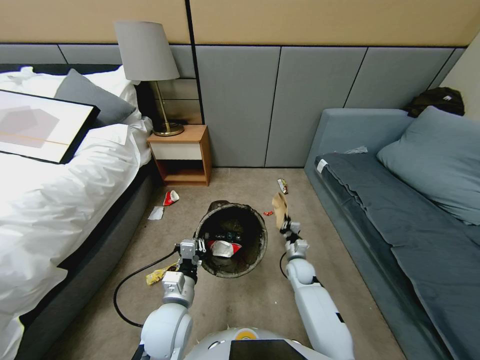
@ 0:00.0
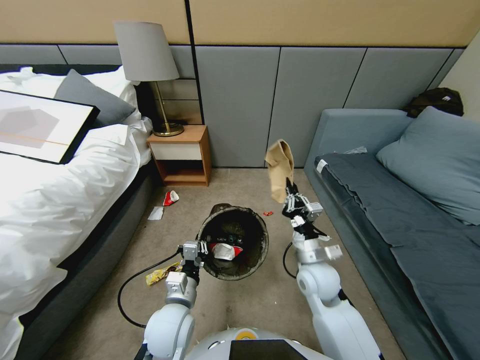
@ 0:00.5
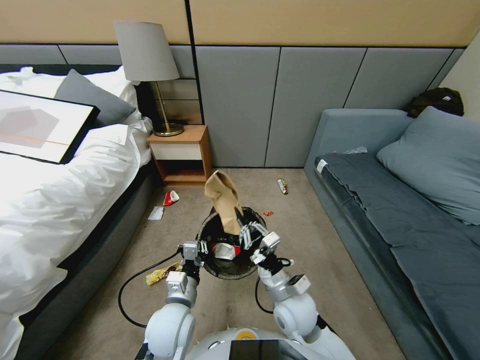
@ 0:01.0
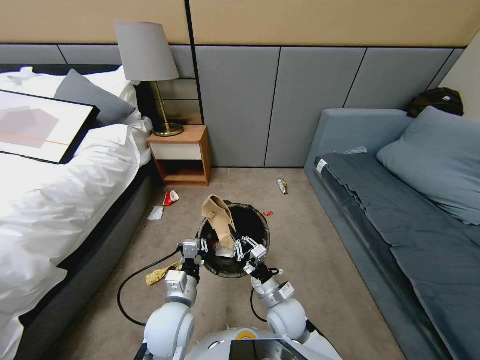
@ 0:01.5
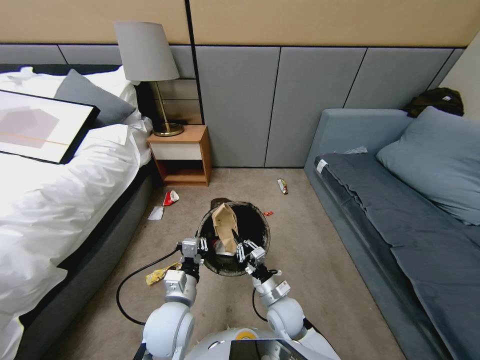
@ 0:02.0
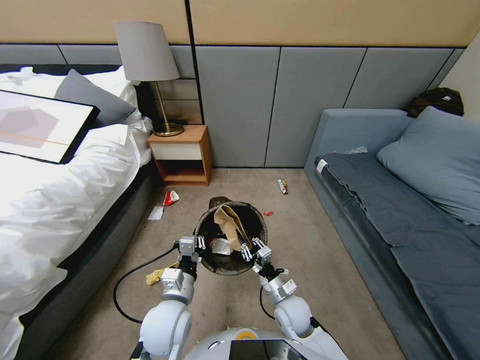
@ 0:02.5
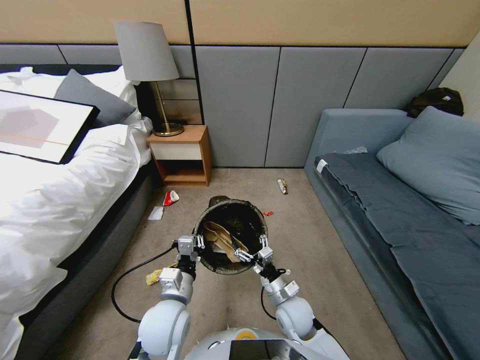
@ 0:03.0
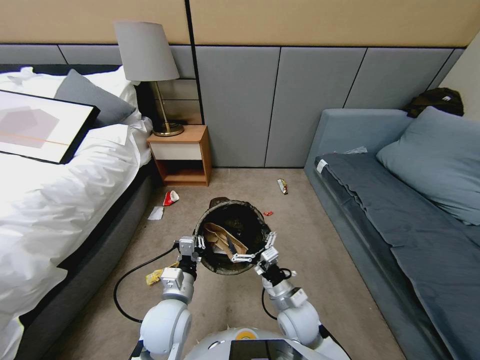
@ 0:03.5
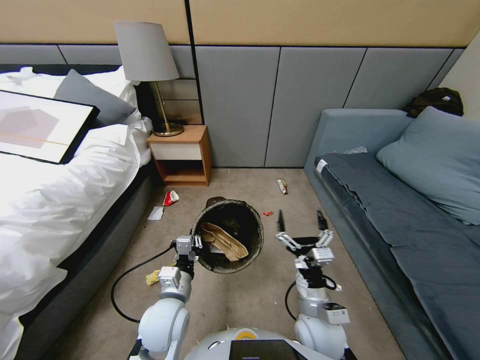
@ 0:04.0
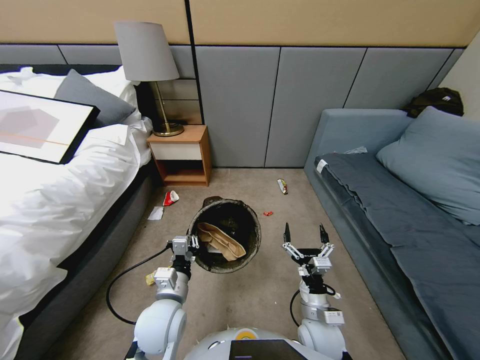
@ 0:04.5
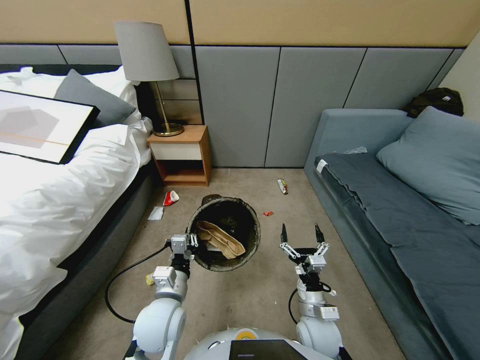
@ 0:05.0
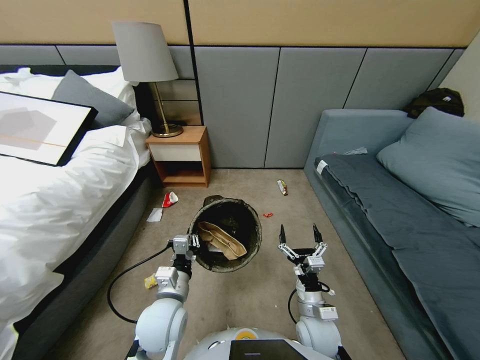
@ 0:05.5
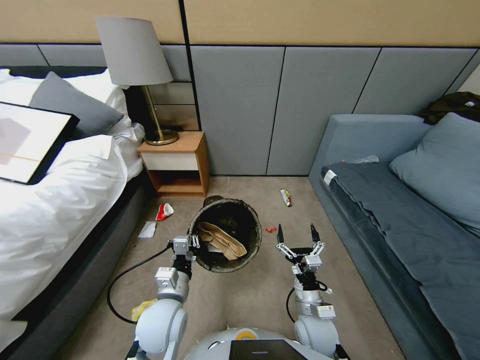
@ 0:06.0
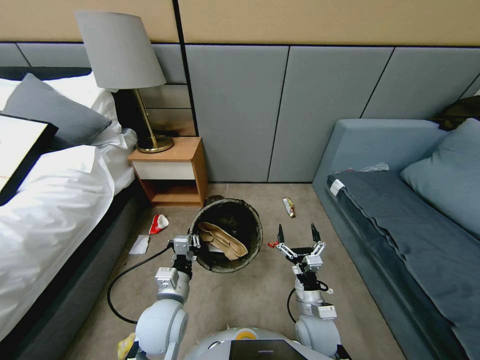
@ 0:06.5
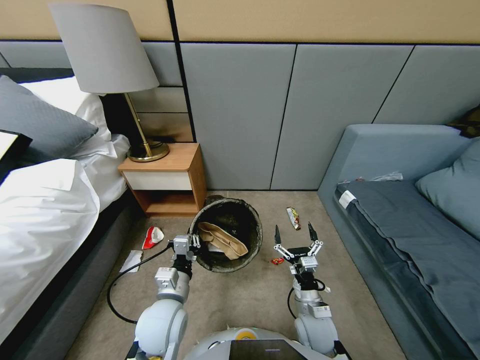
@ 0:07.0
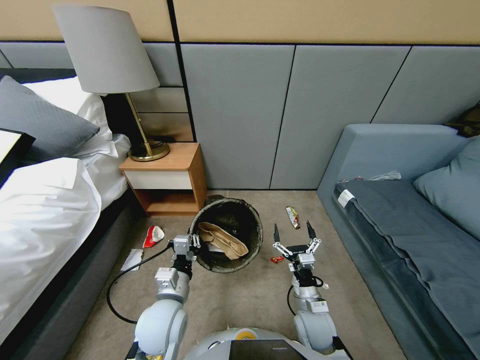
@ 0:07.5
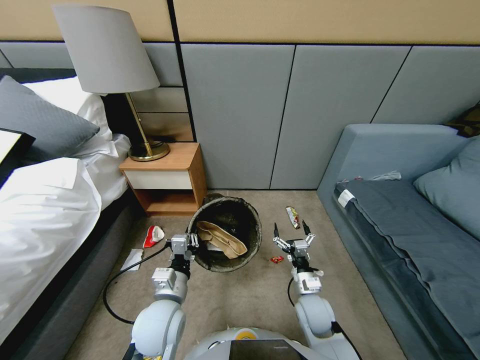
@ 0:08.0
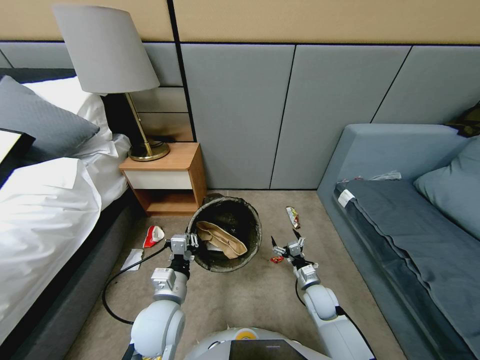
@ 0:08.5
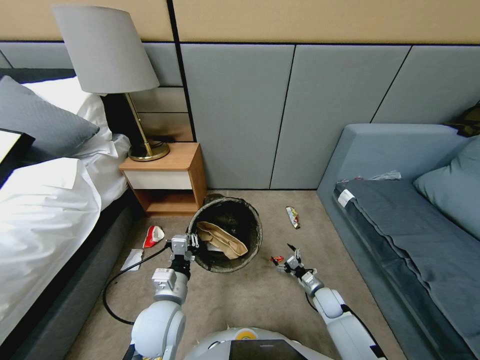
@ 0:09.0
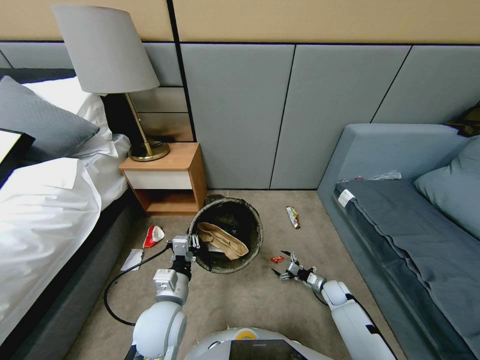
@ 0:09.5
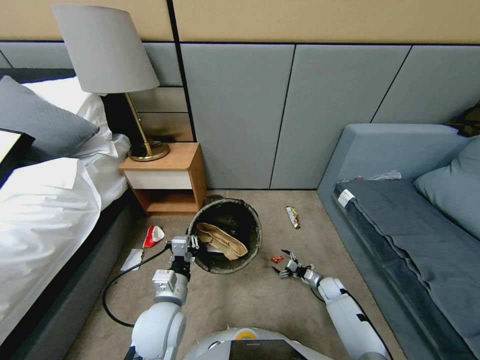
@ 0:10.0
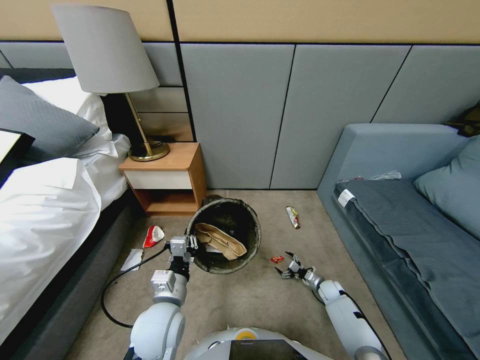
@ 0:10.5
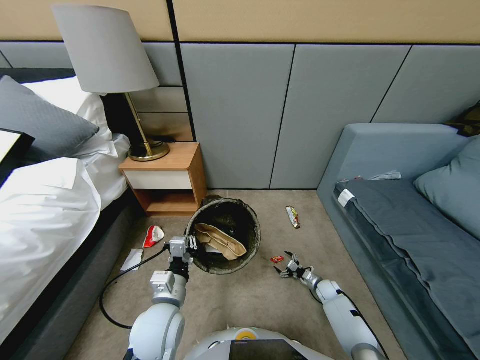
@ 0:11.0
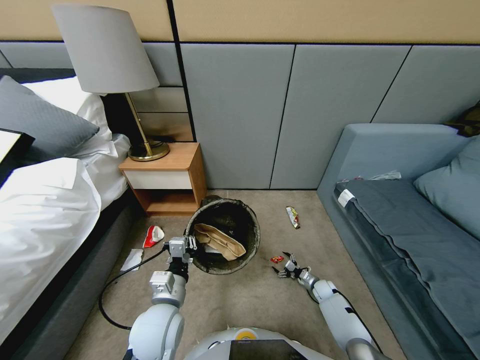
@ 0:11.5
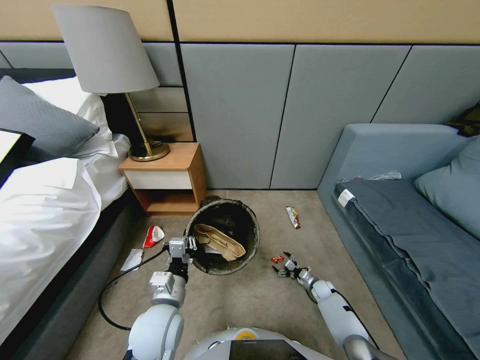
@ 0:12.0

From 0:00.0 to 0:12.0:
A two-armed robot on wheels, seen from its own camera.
Task of the whole recording: Pick up the trash bin, then pick up the garbage from the floor and place it into the trash bin.
From 0:00.0 to 0:02.0: The right gripper is displaced backward and to the left by some 15 cm.
From 0:02.0 to 0:04.0: The right gripper is displaced upward, to the right and backward by roughly 10 cm, and opens up.
From 0:04.0 to 0:06.0: The right gripper heads downward, covering approximately 5 cm.
From 0:06.0 to 0:08.0: The right gripper moves forward, some 5 cm.
From 0:08.0 to 0:10.0: The right gripper goes roughly 25 cm downward, to the right and forward.
From 0:10.0 to 0:12.0: The grippers move only a little.

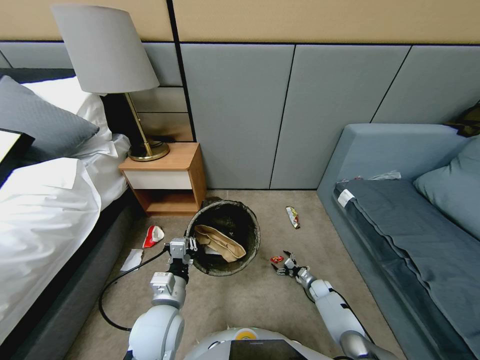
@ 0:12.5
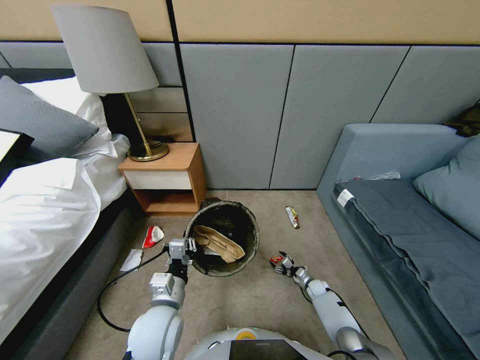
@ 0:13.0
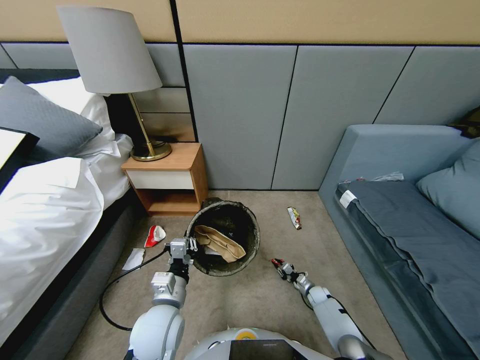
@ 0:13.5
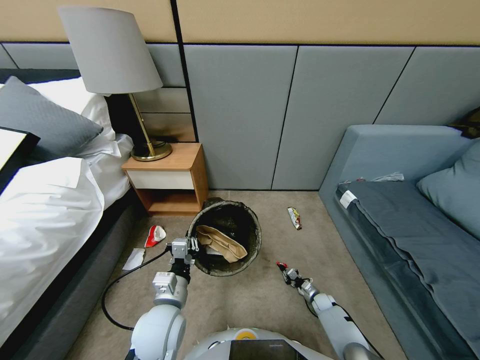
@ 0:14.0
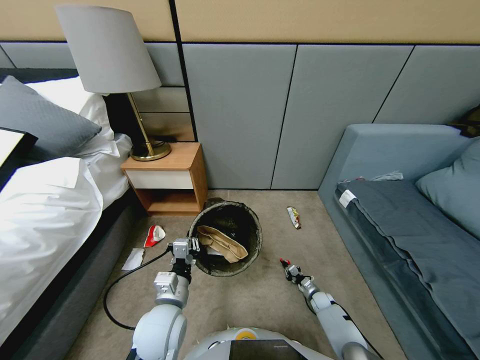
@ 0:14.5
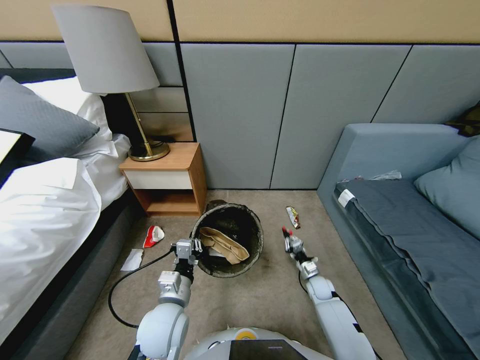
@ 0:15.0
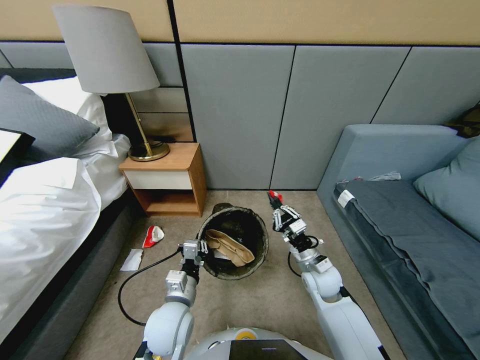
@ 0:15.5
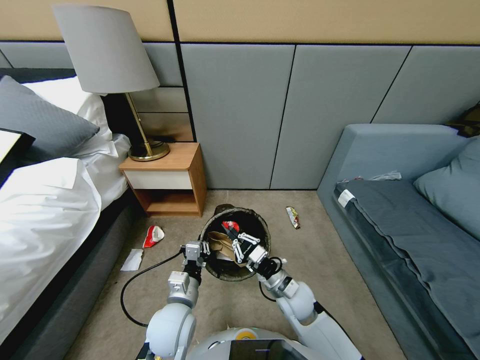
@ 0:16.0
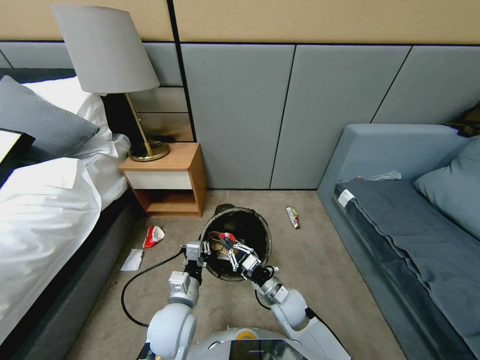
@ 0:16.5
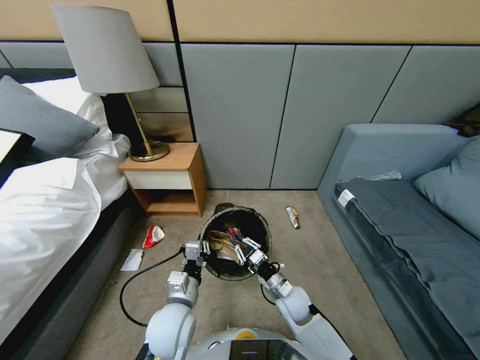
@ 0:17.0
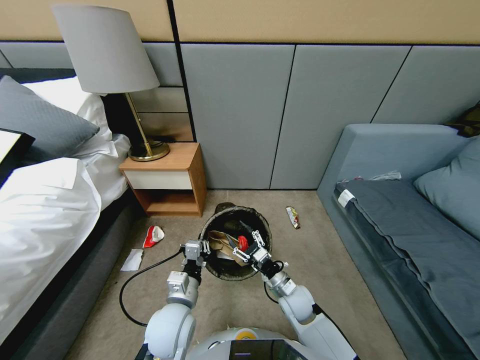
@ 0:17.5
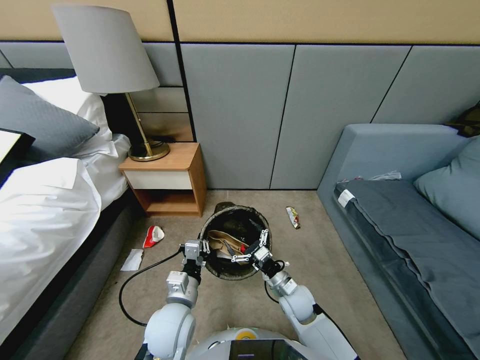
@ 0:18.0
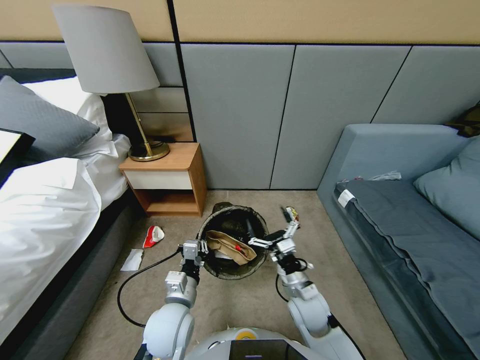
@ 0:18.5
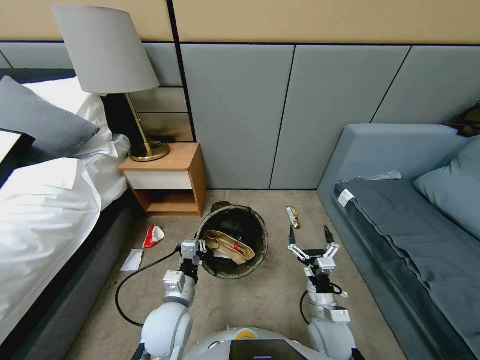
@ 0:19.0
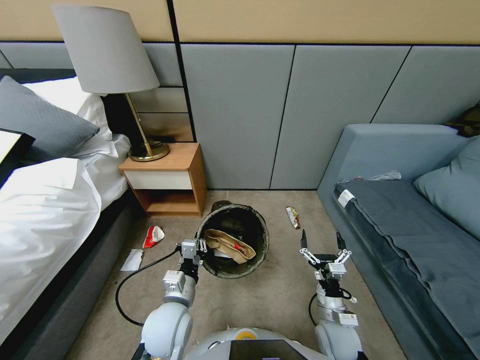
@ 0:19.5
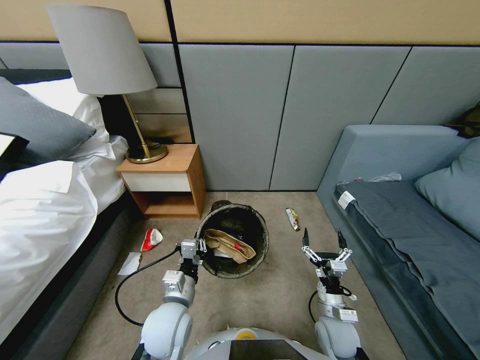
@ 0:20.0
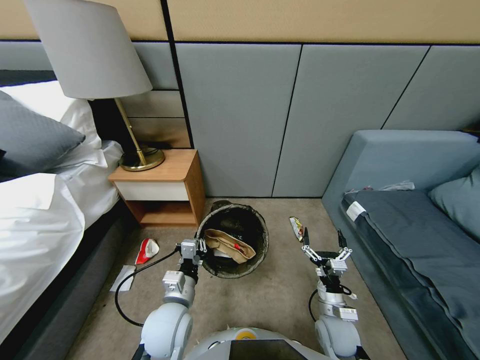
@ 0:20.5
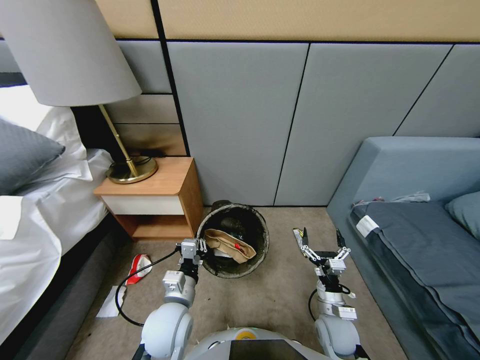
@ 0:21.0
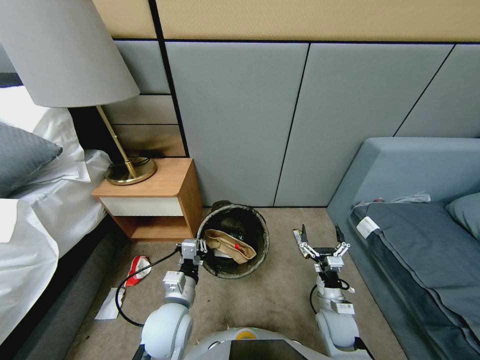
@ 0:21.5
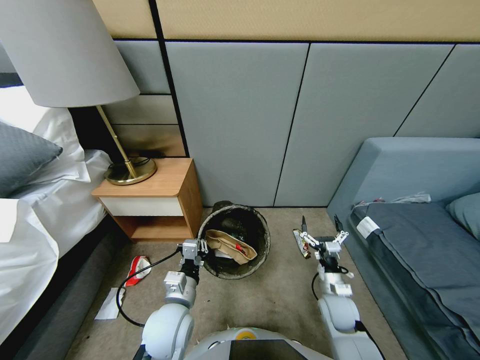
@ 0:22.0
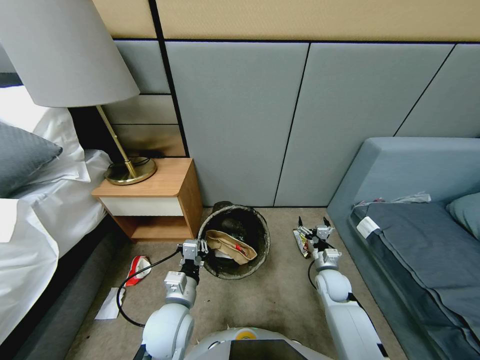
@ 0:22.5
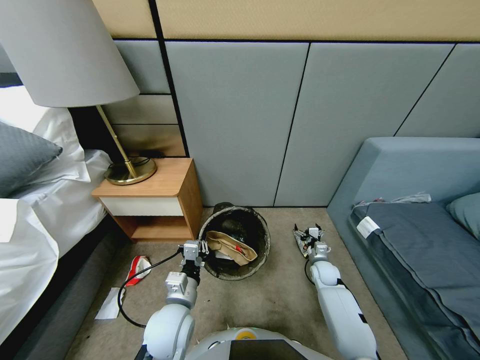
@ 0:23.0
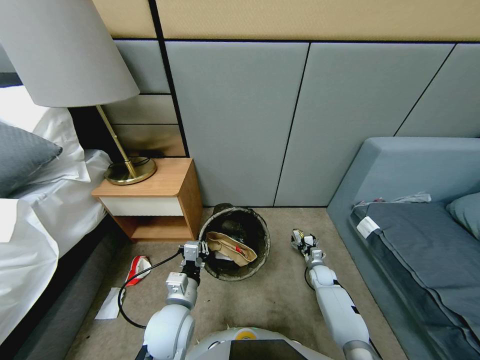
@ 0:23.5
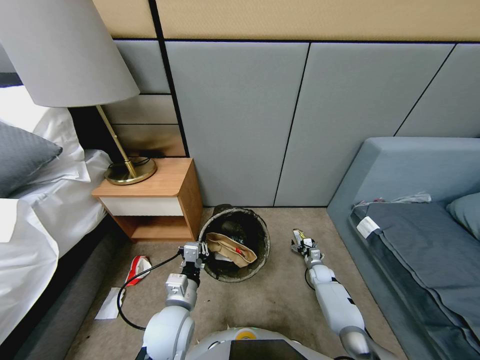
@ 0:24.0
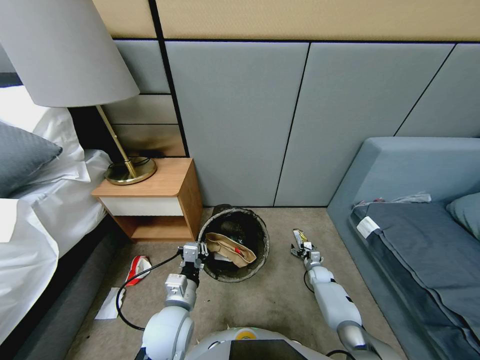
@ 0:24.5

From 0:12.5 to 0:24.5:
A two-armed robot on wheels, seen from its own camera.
Task of the whole recording: Pick up the trash bin, then pick up the garbage from the floor and place it into the trash bin.
From 0:12.5 to 0:14.5: The right gripper closes up.
From 0:14.5 to 0:16.5: The right gripper travels upward and to the left by some 30 cm.
From 0:16.5 to 0:18.5: The right gripper moves upward, roughly 5 cm, and opens.
From 0:18.5 to 0:20.5: The right gripper heads to the right and downward, covering about 10 cm.
From 0:20.5 to 0:22.5: The right gripper travels forward and to the right by approximately 15 cm.
From 0:22.5 to 0:24.5: The right gripper moves downward and forward, some 20 cm.

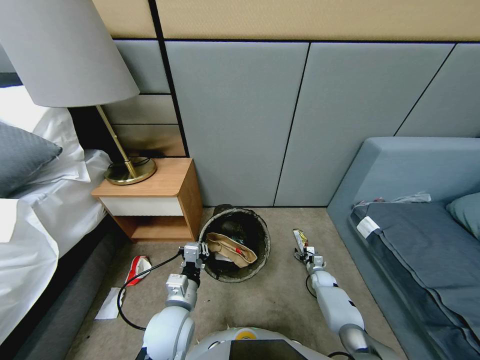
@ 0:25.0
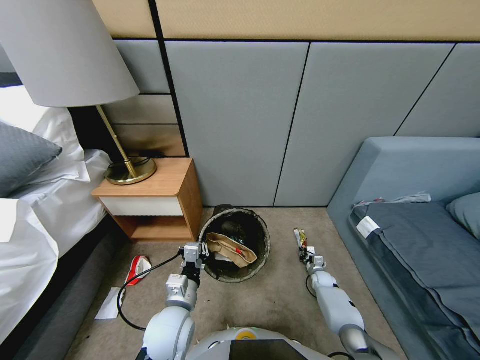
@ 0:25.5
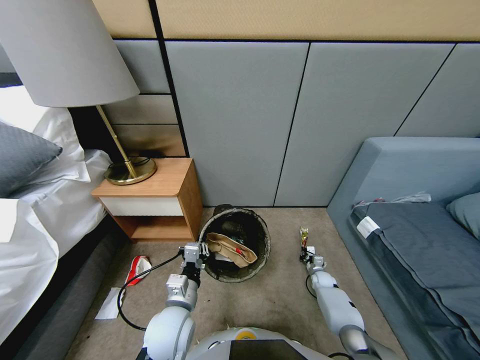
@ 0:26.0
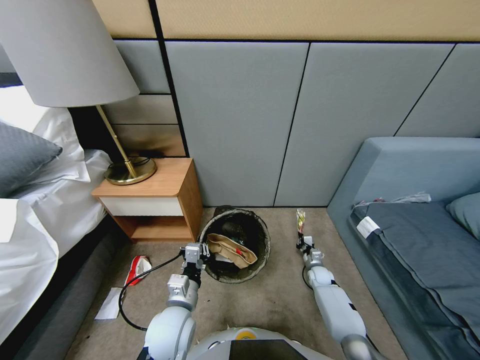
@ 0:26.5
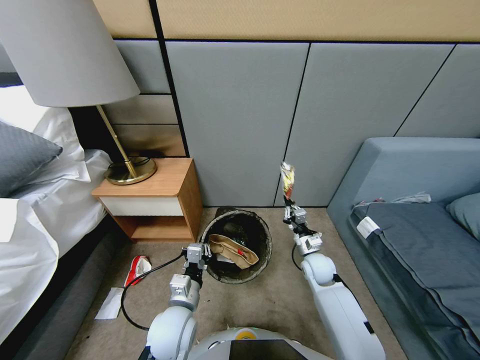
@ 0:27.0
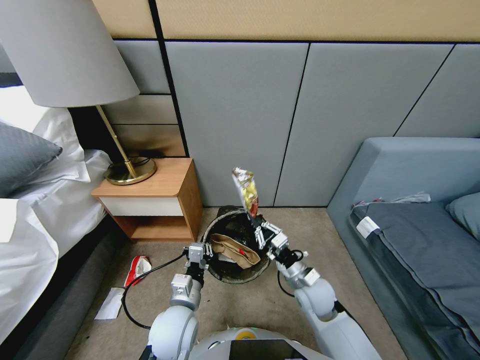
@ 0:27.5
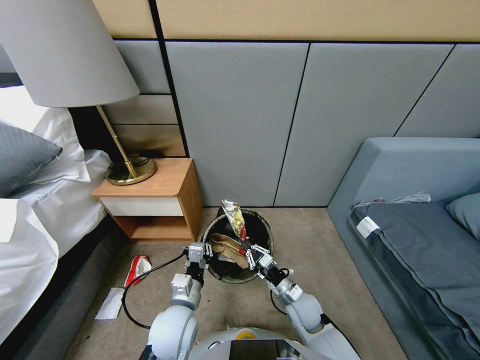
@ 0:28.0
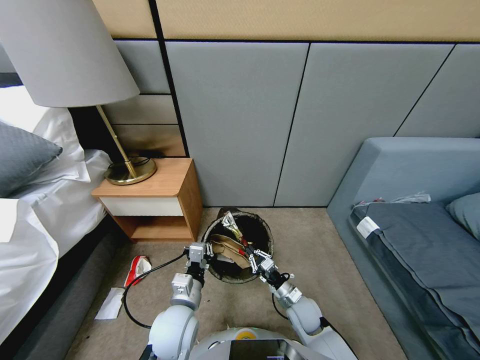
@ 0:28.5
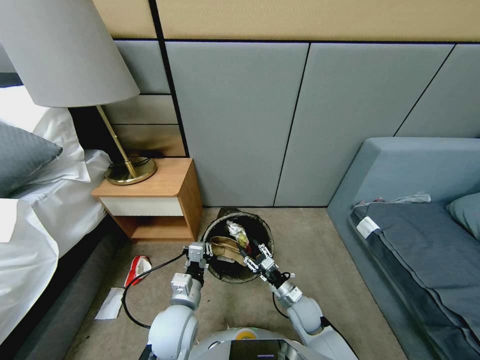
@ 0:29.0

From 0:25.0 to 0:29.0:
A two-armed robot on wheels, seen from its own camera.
Task of the whole recording: Pick up the trash bin, then pick up the garbage from the floor and place it into the trash bin.
From 0:25.0 to 0:27.0: The right gripper moves upward and to the left, roughly 30 cm, and closes up.
From 0:27.0 to 0:29.0: The right gripper shifts roughly 15 cm downward and backward, and opens up.
